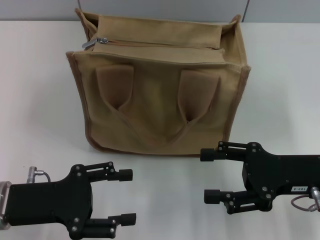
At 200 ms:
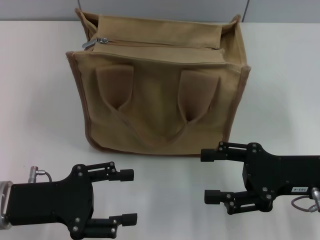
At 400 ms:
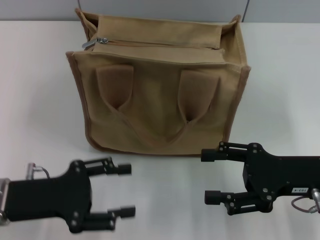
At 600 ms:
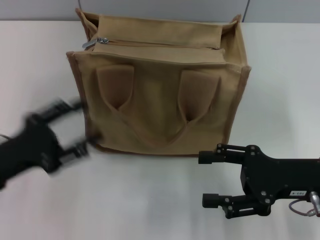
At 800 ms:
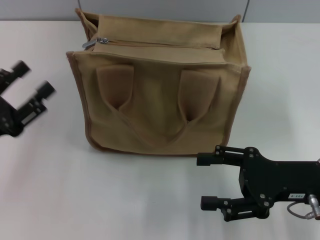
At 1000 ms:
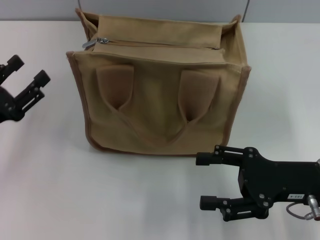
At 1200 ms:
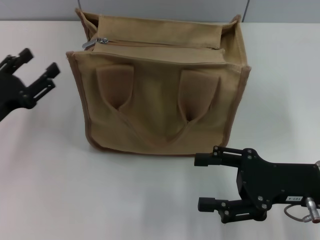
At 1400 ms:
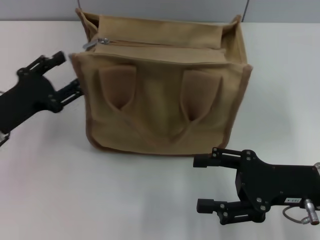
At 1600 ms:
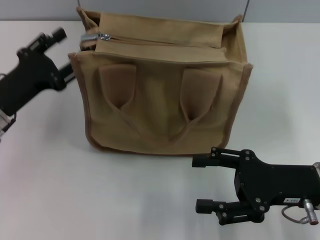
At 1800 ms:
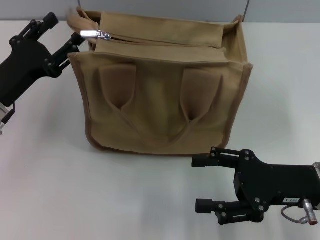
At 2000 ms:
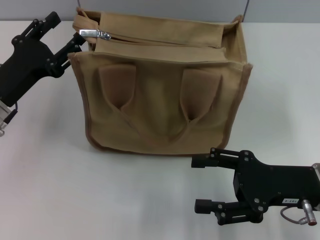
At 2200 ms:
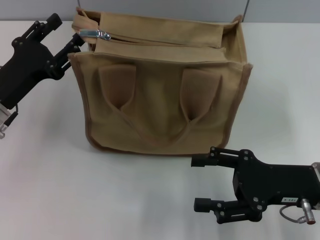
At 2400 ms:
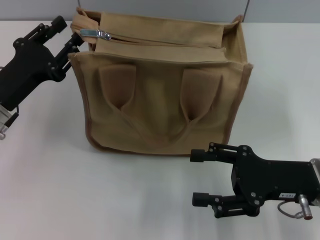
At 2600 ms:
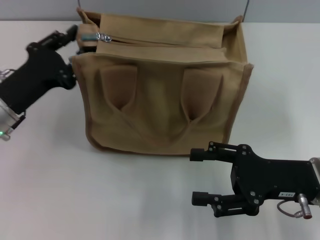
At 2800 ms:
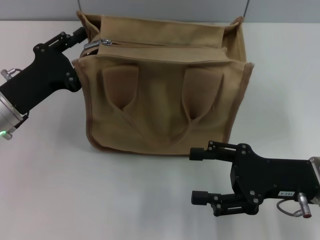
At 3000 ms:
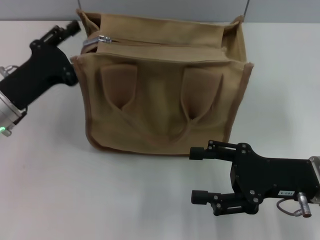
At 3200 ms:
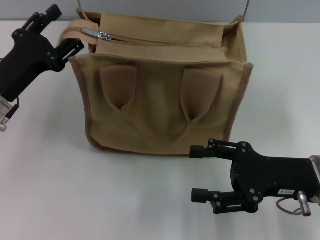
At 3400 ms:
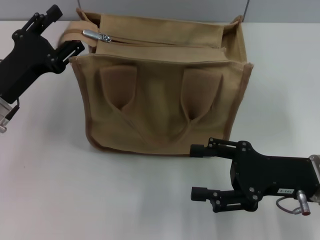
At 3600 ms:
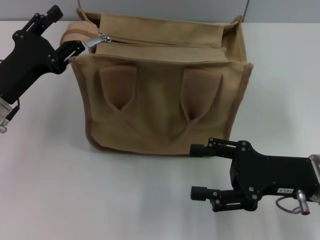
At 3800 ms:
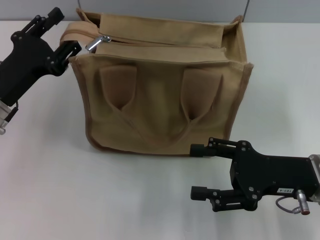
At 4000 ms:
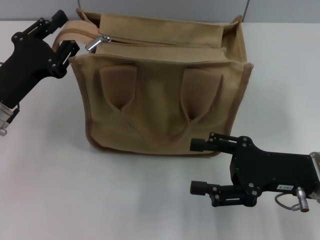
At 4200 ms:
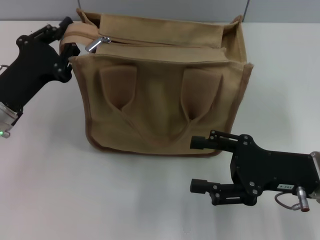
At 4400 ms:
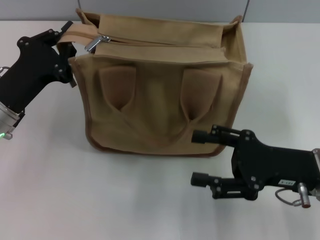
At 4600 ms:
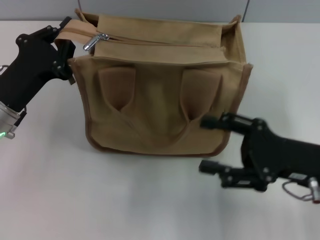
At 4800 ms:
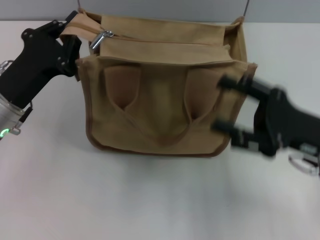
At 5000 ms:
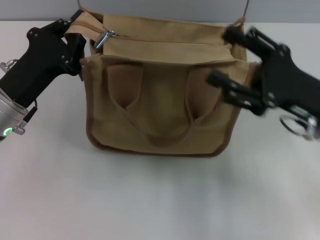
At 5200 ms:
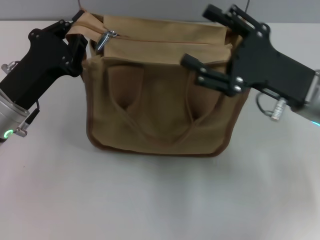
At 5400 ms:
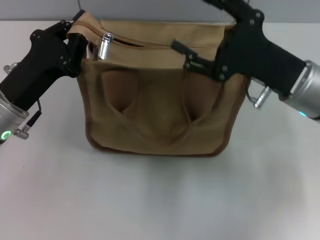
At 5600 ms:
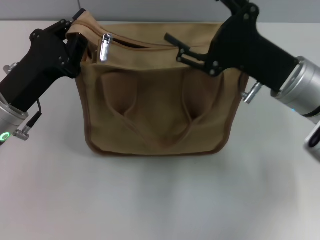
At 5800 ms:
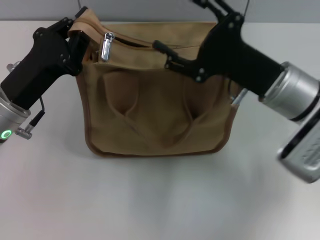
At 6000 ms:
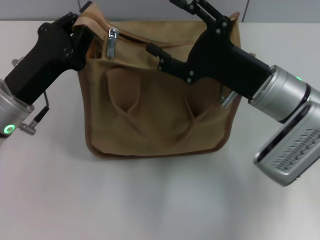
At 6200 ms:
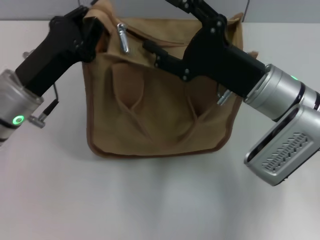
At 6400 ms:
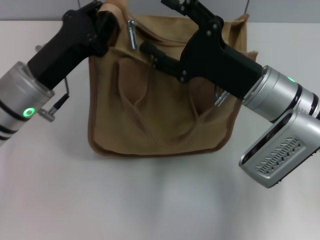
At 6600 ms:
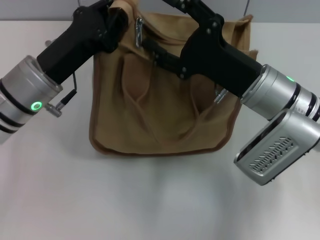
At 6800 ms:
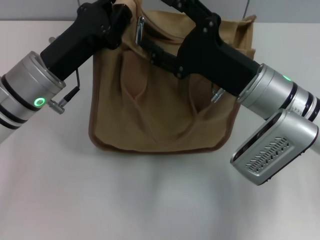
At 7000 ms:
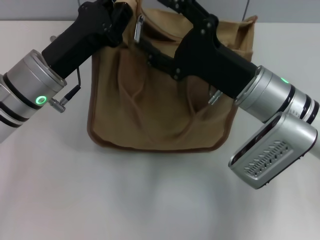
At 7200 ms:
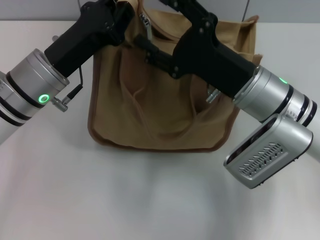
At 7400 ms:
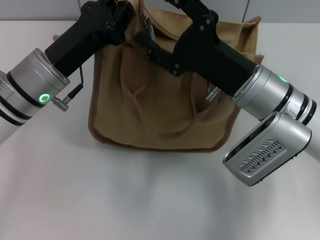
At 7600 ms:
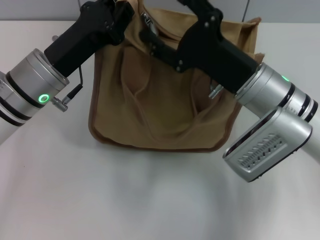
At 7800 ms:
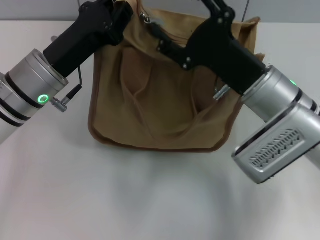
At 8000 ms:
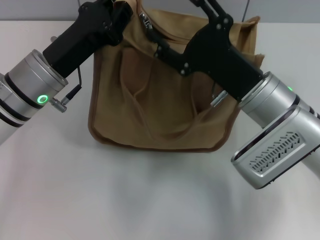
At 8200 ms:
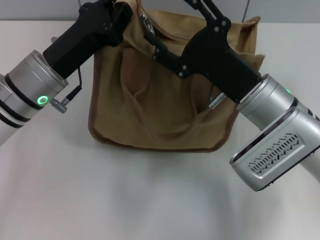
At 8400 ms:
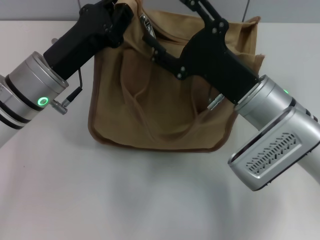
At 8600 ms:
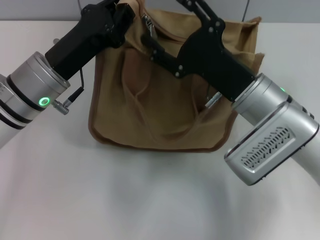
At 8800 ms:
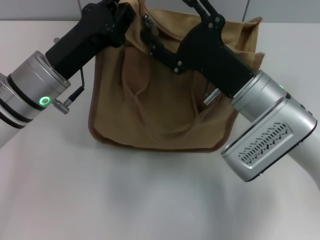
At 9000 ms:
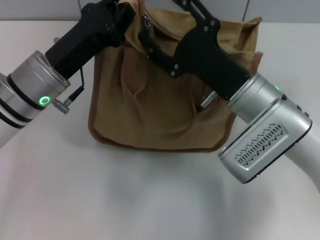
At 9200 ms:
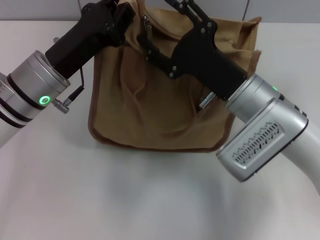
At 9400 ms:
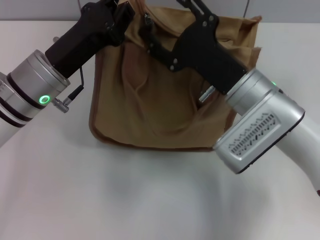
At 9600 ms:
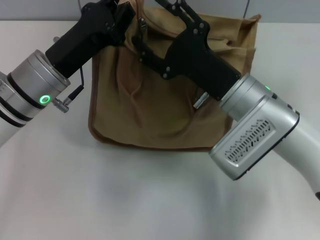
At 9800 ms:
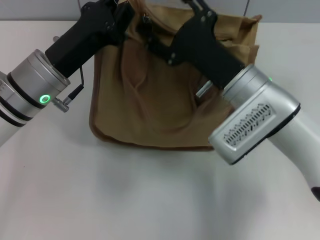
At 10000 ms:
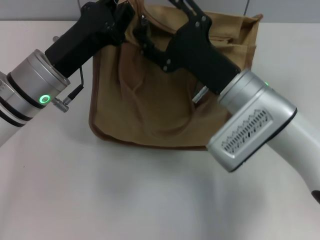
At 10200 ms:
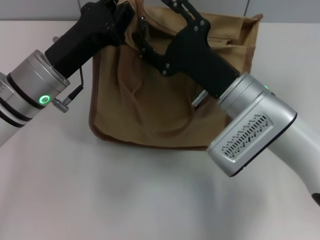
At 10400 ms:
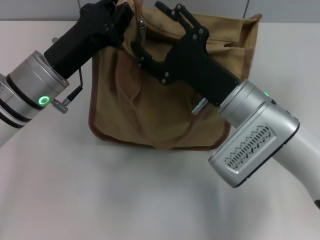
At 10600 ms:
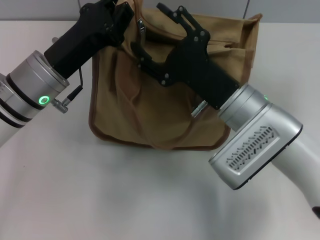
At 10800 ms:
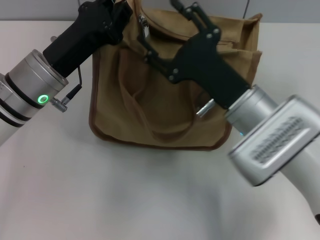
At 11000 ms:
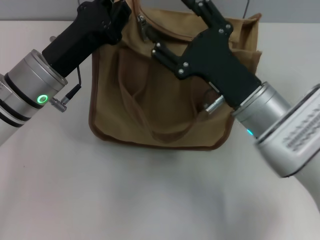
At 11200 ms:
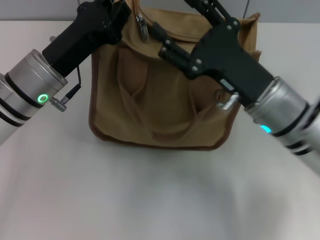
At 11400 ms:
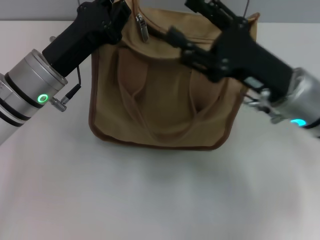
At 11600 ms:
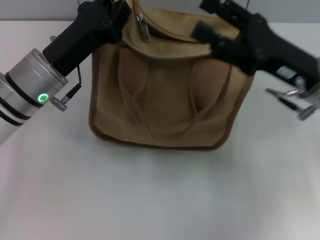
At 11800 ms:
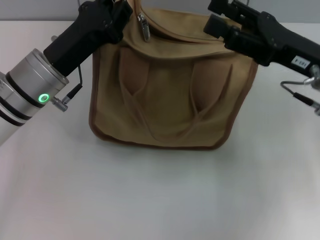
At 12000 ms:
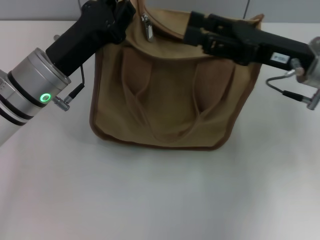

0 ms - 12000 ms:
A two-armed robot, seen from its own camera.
0 ms - 1600 ms: The left gripper travels forward by about 10 cm.
1600 ms - 3000 ms: There are only small adjustments of the grippers.
3000 ms - 4400 ms: The left gripper closes its fingers.
4400 ms - 6000 ms: The right gripper heads forward and to the left, covering some 10 cm.
6000 ms - 7600 ms: The left gripper changes place by approximately 5 cm.
7600 ms - 10400 ms: There are only small adjustments of the grippers.
10400 ms - 12000 ms: The right gripper is displaced to the right and upward by approximately 10 cm.

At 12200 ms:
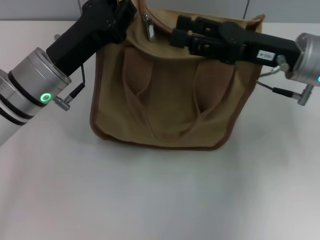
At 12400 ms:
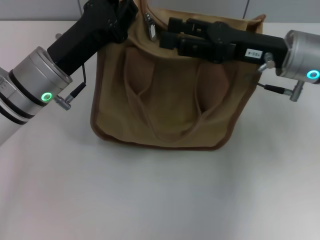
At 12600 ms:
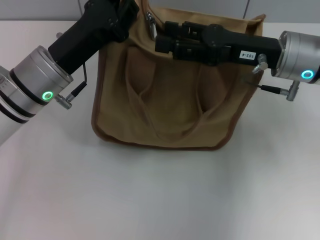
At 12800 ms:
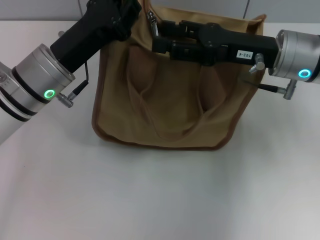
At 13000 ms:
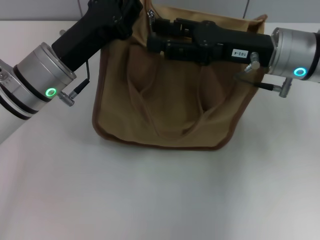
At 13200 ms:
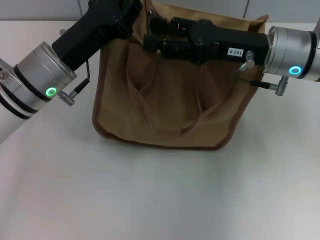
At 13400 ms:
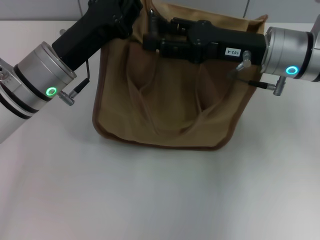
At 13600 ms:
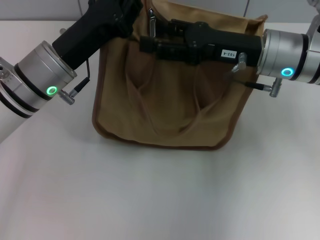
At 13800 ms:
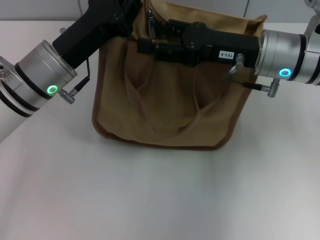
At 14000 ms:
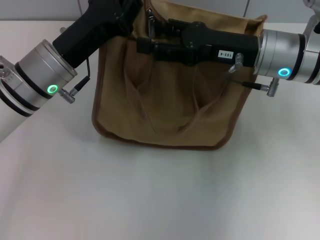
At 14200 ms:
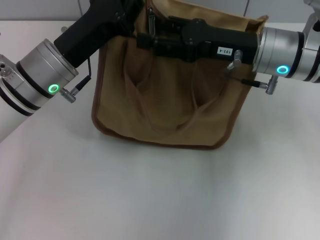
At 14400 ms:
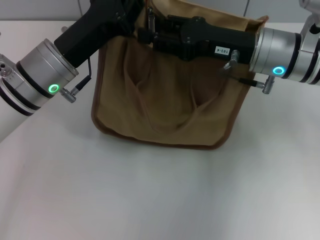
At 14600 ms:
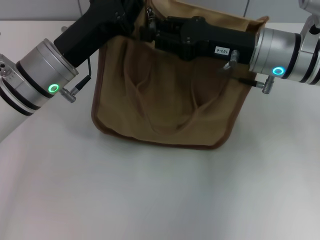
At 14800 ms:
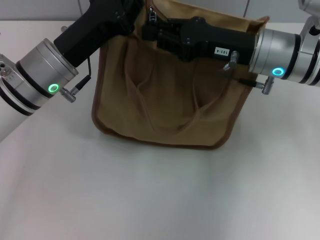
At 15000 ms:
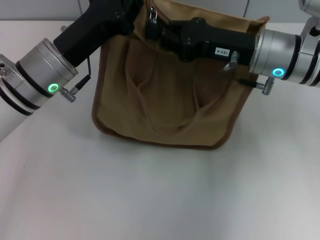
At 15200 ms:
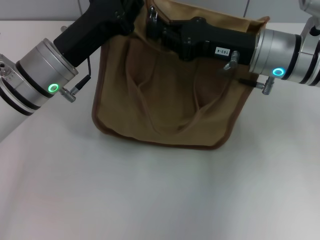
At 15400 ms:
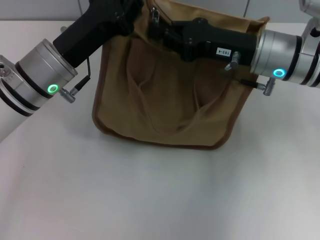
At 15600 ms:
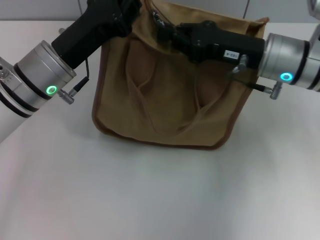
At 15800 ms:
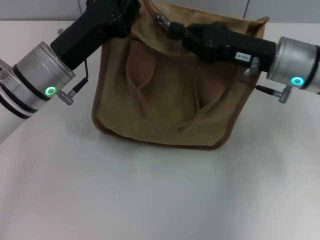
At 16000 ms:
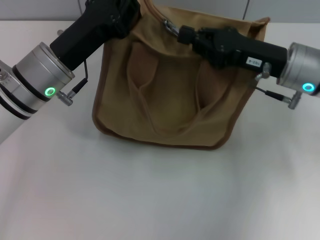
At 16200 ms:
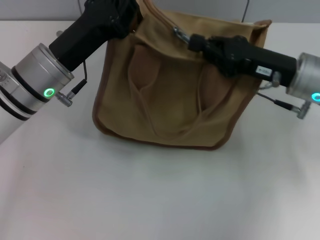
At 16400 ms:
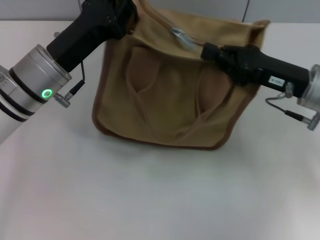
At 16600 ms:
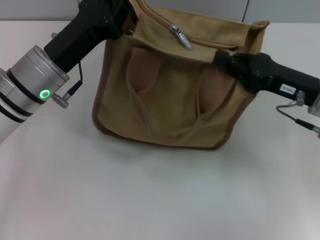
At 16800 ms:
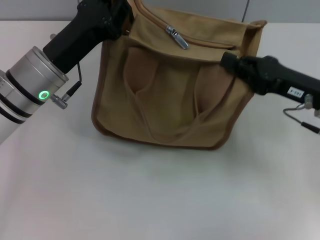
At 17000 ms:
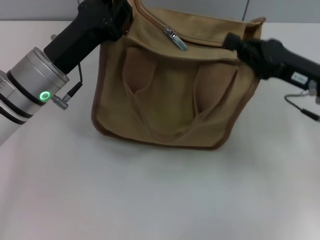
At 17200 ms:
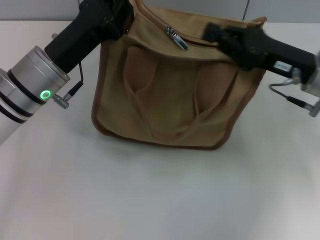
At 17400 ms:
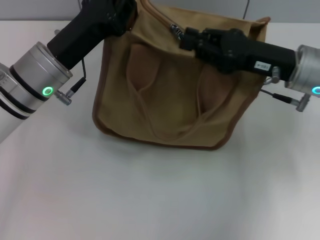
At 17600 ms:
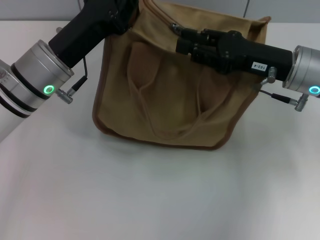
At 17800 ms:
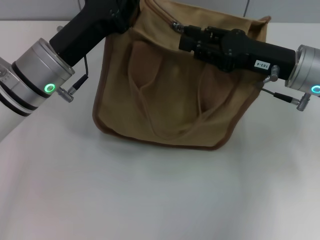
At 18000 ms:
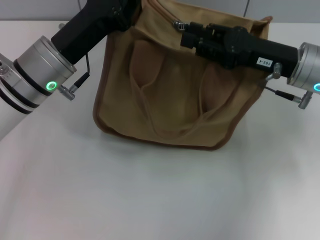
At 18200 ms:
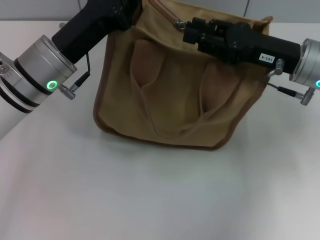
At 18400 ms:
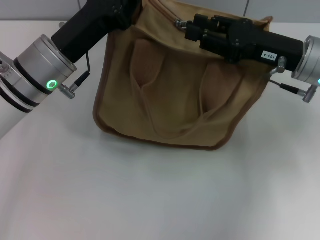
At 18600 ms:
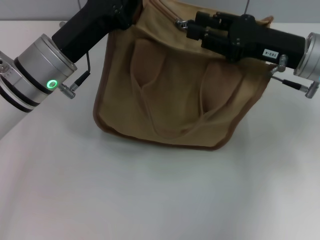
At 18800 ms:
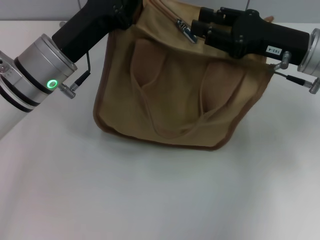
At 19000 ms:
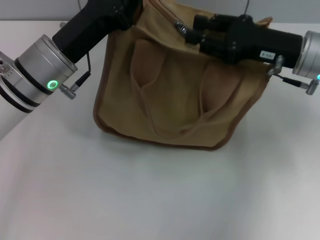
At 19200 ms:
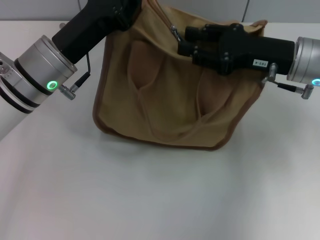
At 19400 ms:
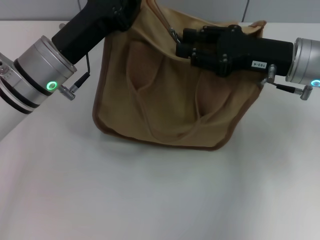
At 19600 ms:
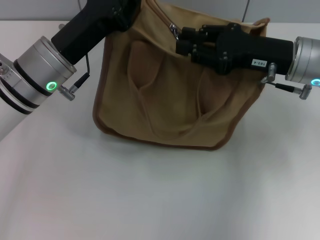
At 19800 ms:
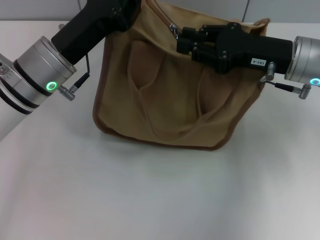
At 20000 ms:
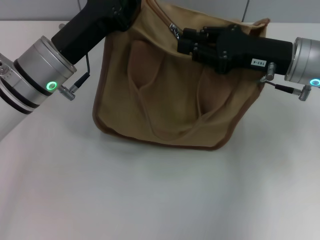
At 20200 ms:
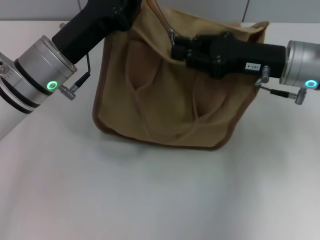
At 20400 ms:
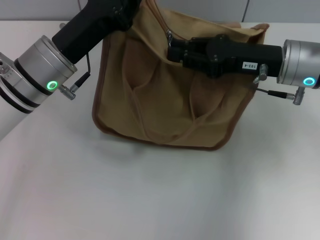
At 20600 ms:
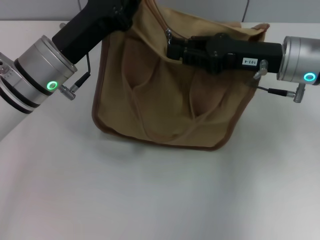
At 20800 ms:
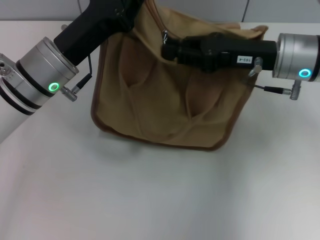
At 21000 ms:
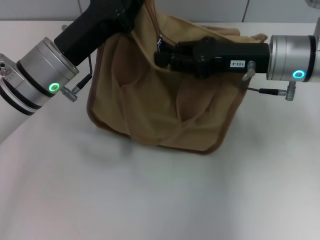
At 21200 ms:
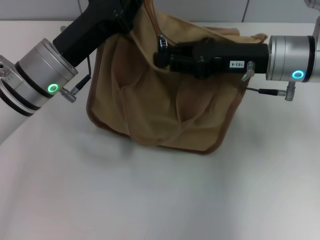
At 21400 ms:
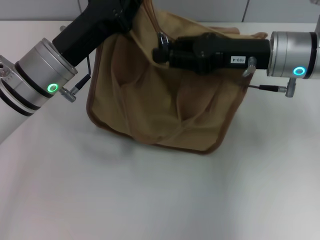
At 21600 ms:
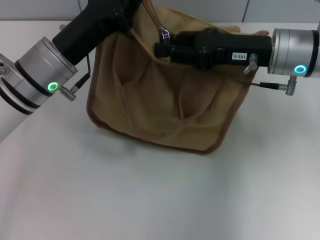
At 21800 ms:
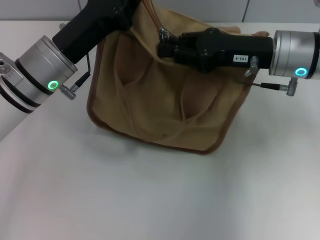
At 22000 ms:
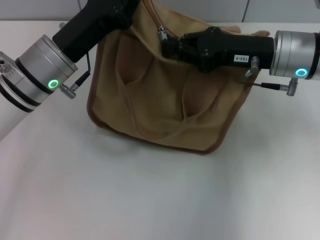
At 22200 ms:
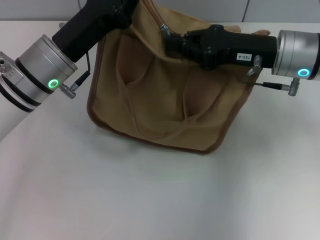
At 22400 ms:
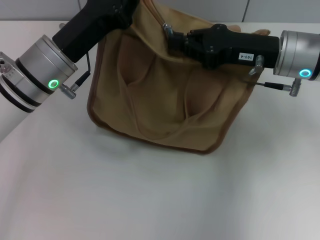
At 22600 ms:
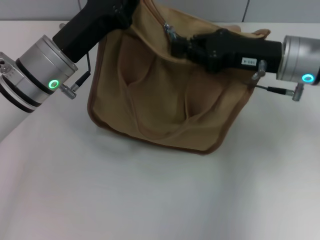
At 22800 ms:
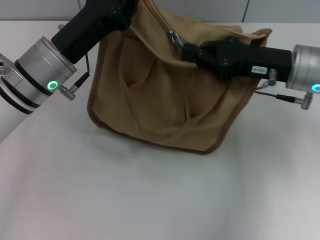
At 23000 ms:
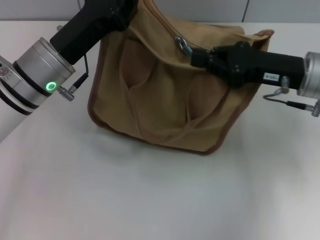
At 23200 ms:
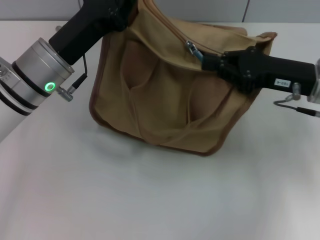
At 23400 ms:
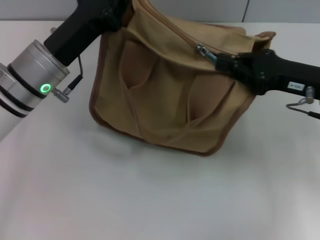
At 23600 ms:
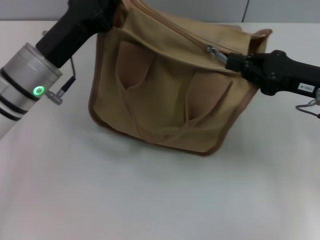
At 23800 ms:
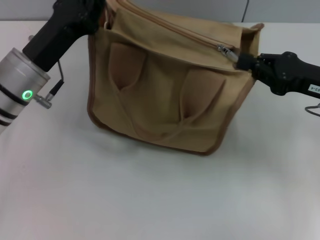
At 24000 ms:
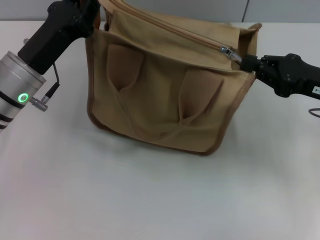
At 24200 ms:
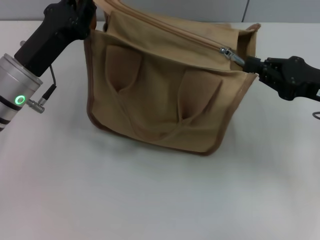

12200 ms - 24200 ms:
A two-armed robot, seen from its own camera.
Step, 12200 ms - 24000 ms: Pull up the zipper with your right hand.
12200 ms - 13800 ms: The grippers move only a little.
13800 ms - 15200 ms: The right gripper closes.
15200 ms - 16600 ms: The right gripper heads to the right and backward, covering about 10 cm.
16600 ms - 18200 ms: The right gripper changes place by about 5 cm, and opens its fingers.
18200 ms - 21200 ms: The grippers make only small movements.
21200 ms - 22600 ms: The right gripper closes.
22600 ms - 24200 ms: The left gripper changes place by about 5 cm, while the right gripper goes roughly 10 cm to the right and backward.
